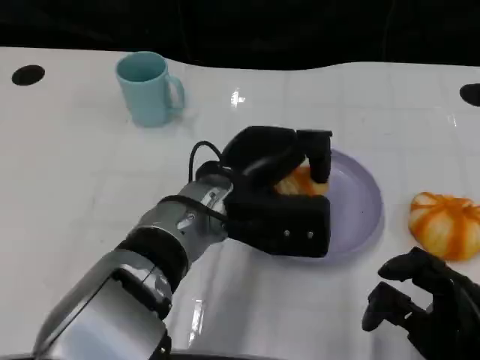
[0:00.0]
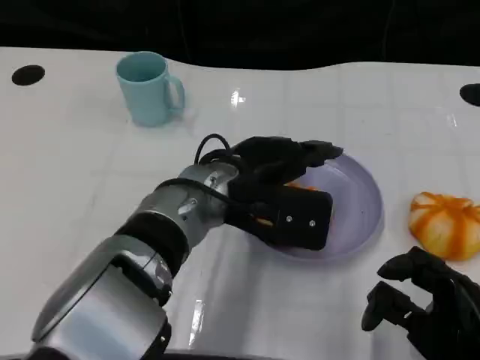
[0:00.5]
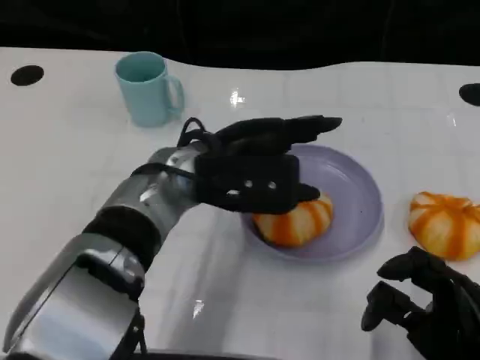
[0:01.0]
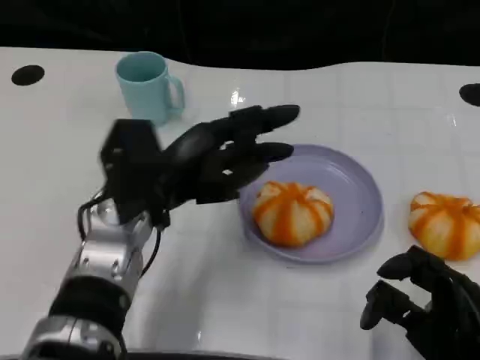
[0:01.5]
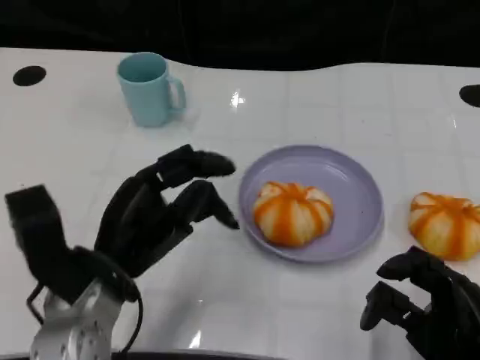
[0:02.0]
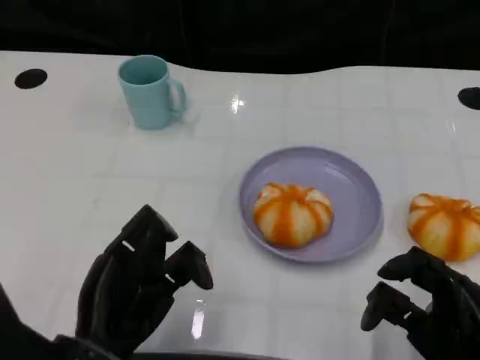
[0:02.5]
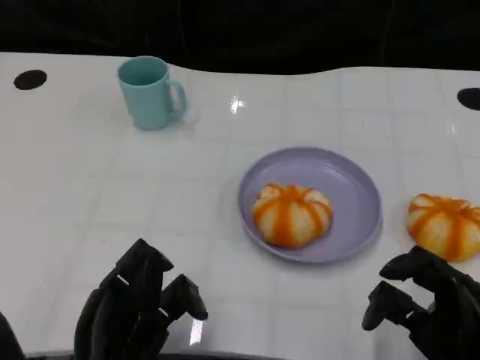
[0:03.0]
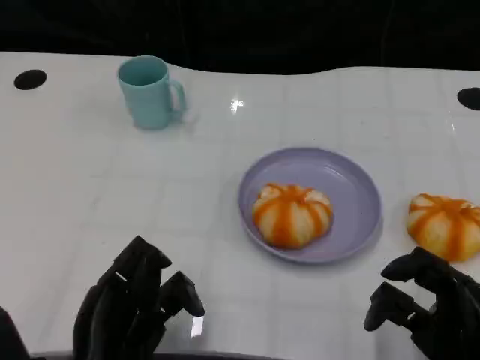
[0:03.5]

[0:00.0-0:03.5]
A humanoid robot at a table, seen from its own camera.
Task of the whole recording: Grasp the bread from the table and place it into the plate.
0:00.0 to 0:02.0: The left hand shifts approximately 15 cm to the left and backward.
0:02.0 to 0:03.5: The left hand travels backward by roughly 10 cm.

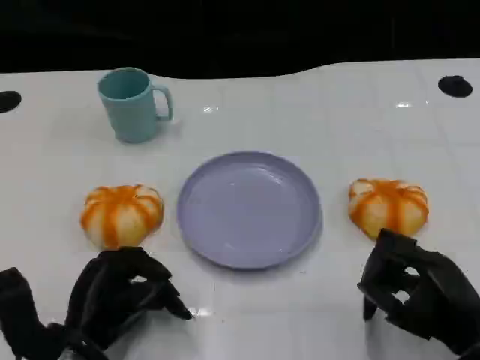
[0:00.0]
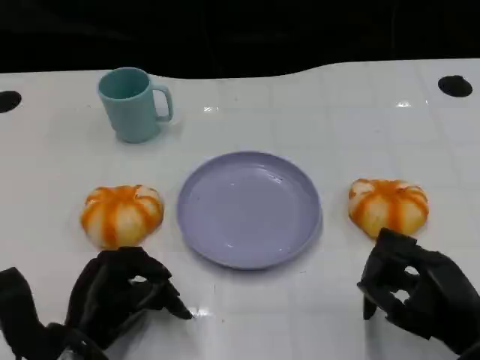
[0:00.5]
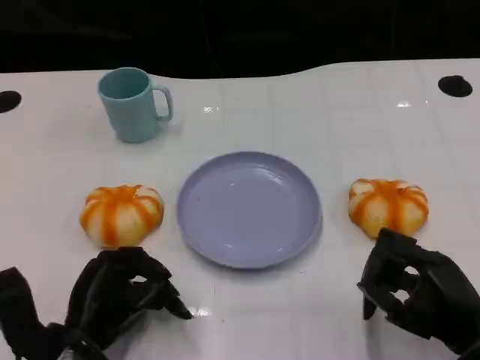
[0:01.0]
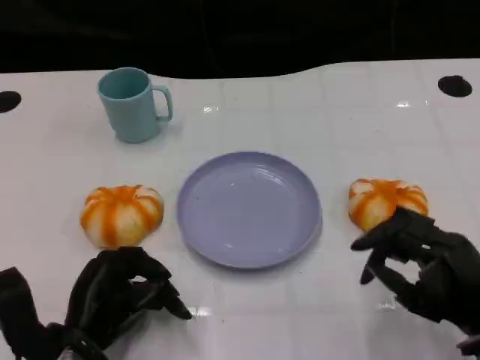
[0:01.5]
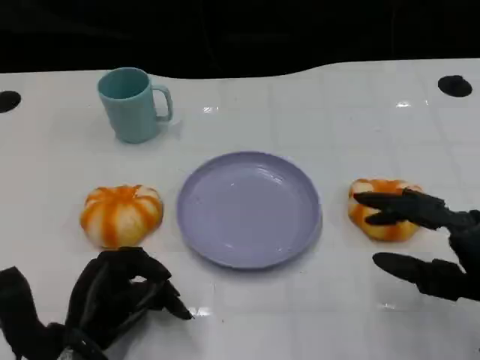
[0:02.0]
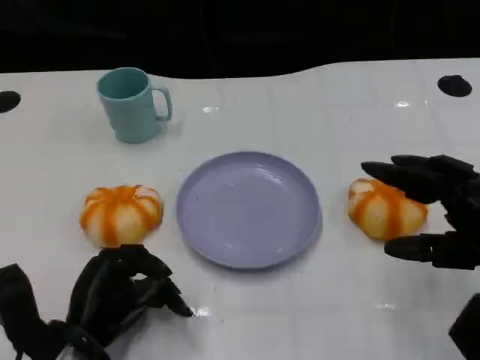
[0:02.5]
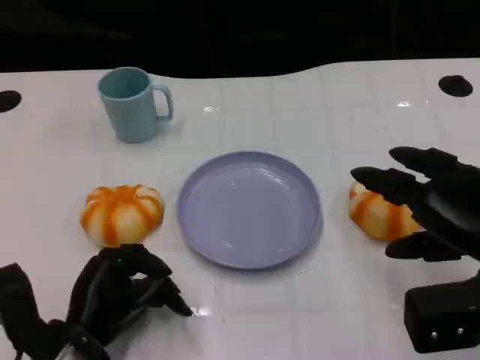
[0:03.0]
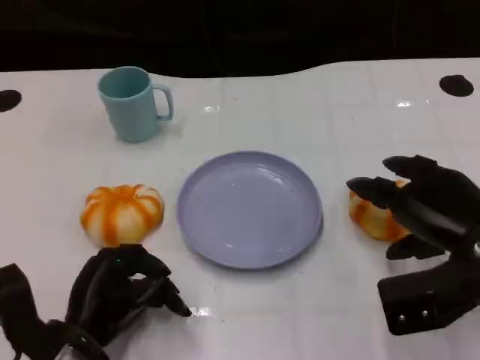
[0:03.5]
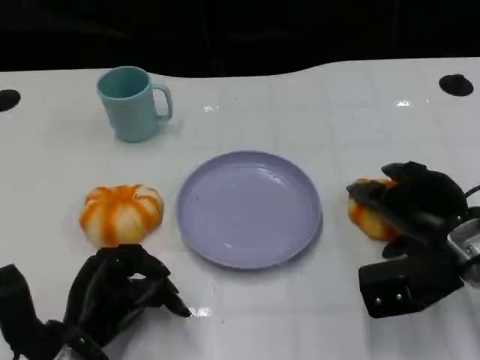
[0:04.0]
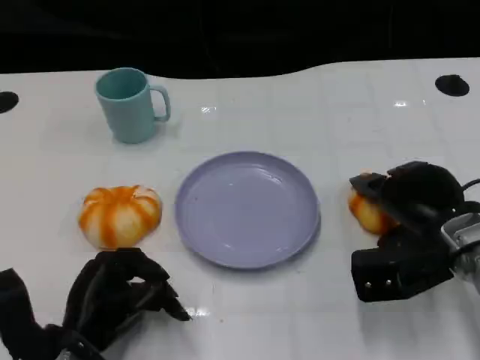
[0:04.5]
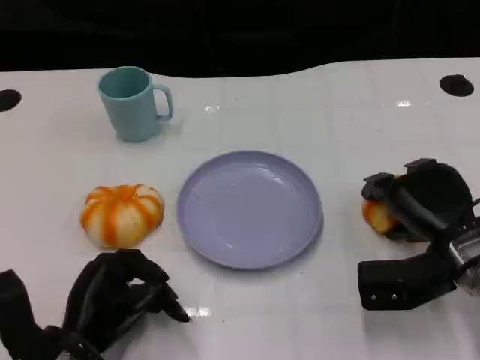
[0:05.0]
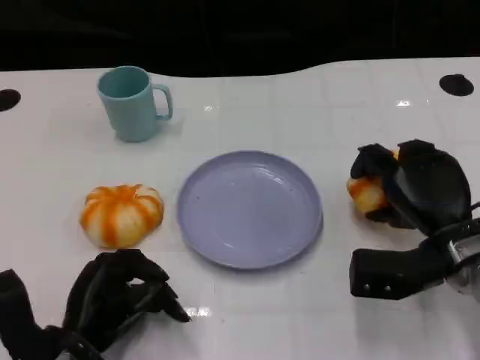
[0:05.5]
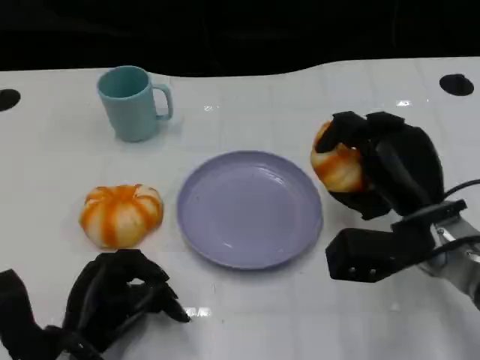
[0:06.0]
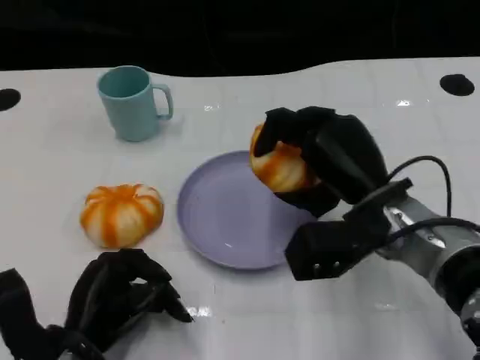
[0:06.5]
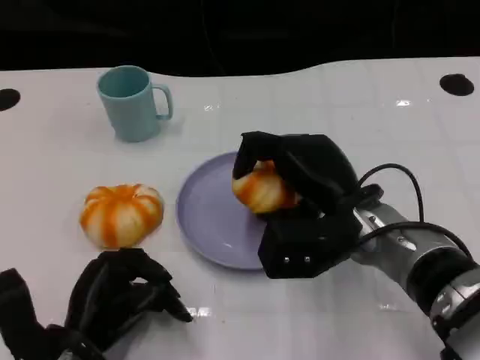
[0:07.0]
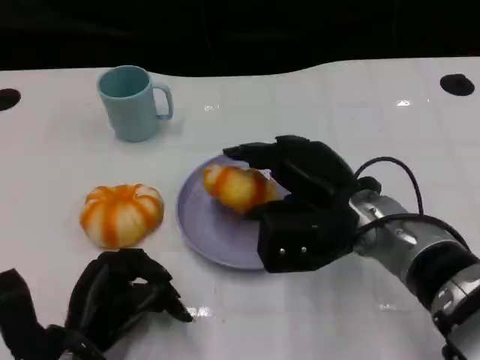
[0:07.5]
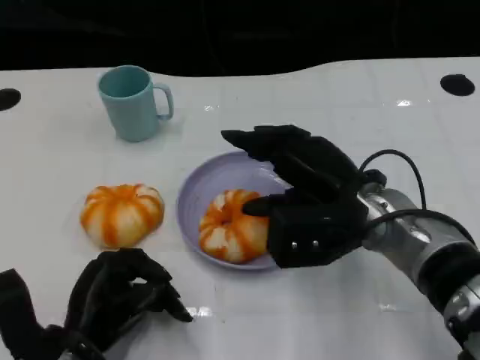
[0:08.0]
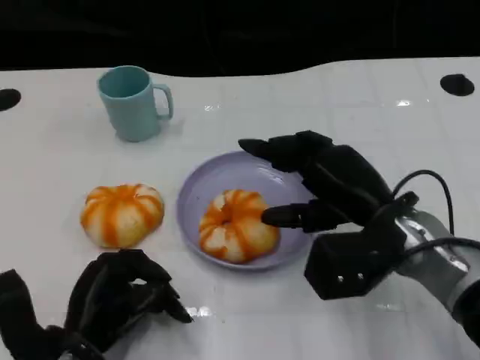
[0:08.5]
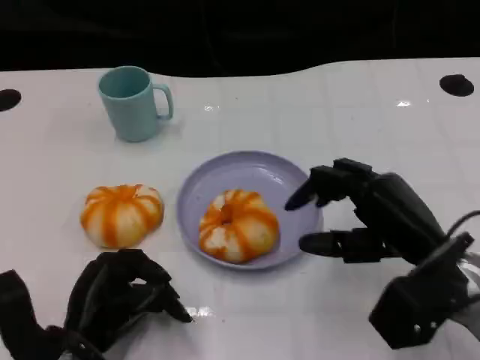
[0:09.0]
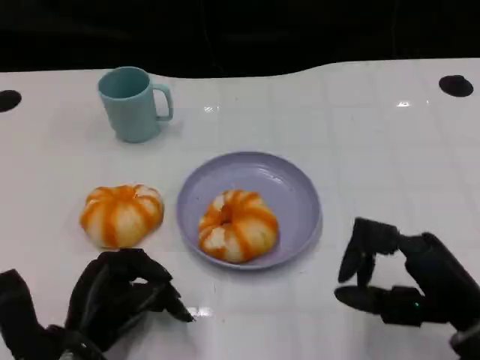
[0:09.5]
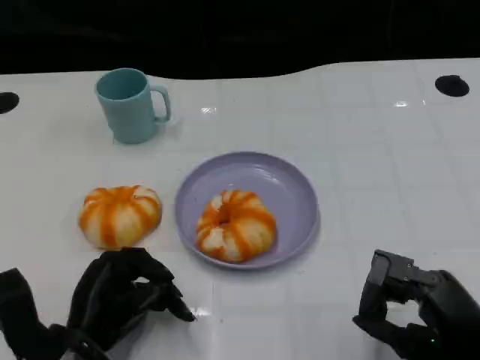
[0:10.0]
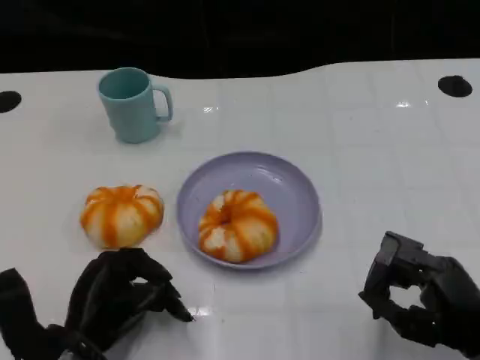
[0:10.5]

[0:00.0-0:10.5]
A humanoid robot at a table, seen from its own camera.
Task of the whole recording: Grasp the bread from the table and place it into the plate.
0:00.0 to 0:02.0: The right hand changes place by about 5 cm.
0:02.0 to 0:04.0: The right hand goes approximately 10 cm forward.
0:04.0 to 0:06.5: The right hand travels to the left by about 10 cm.
0:08.5 to 0:10.5: The right hand travels backward, to the right and downward by approximately 15 cm.

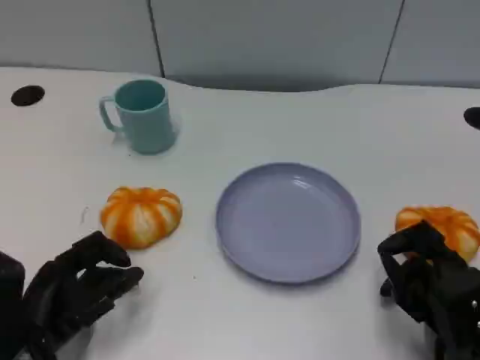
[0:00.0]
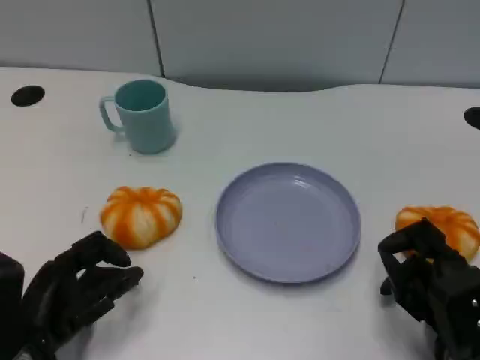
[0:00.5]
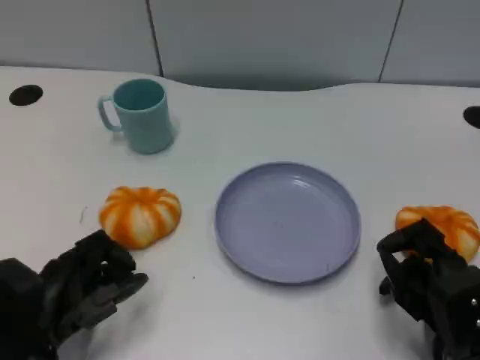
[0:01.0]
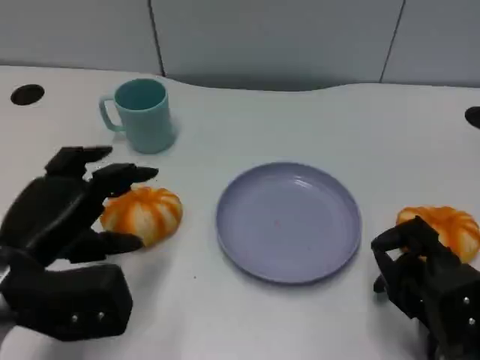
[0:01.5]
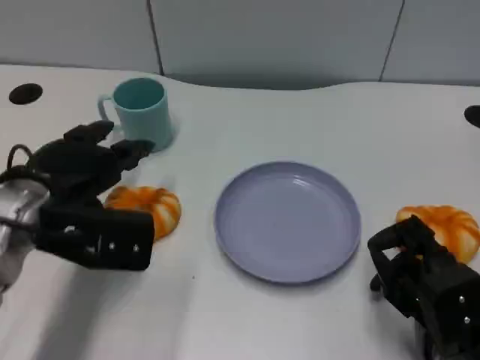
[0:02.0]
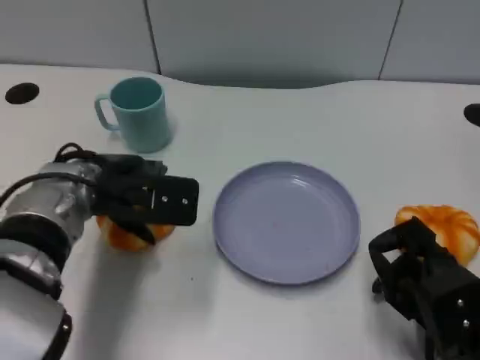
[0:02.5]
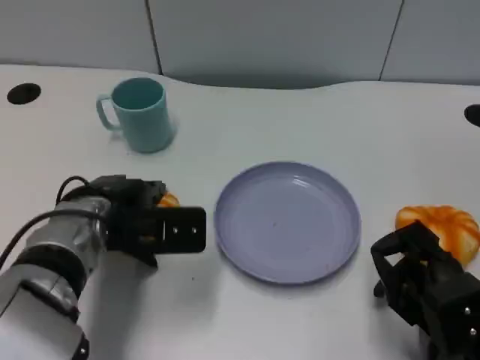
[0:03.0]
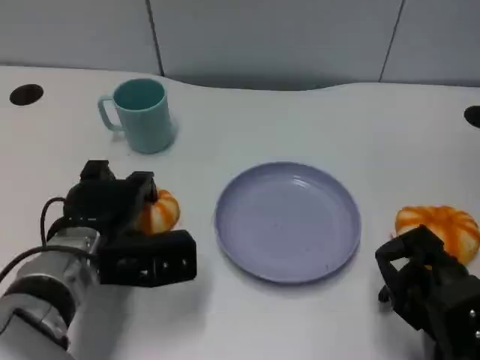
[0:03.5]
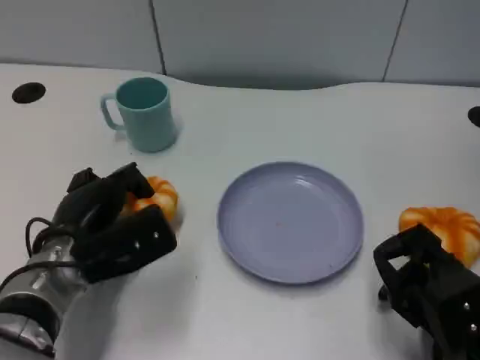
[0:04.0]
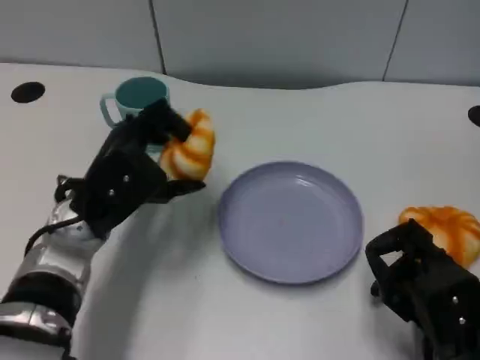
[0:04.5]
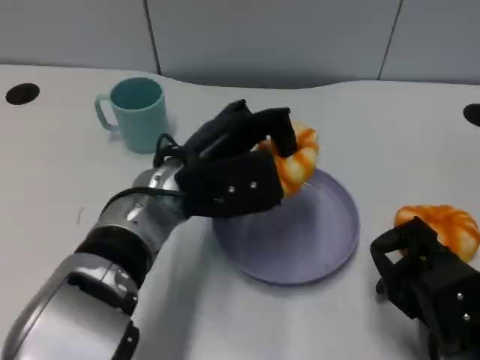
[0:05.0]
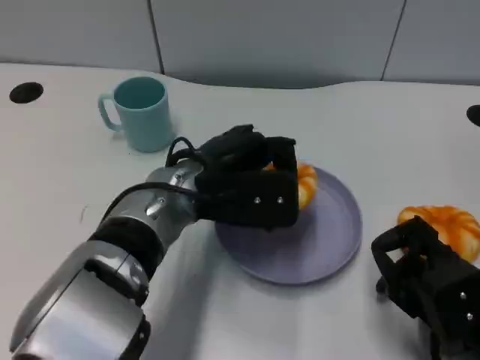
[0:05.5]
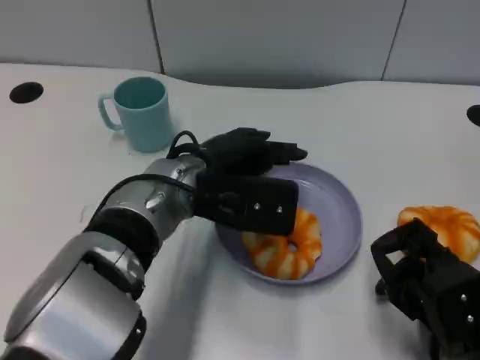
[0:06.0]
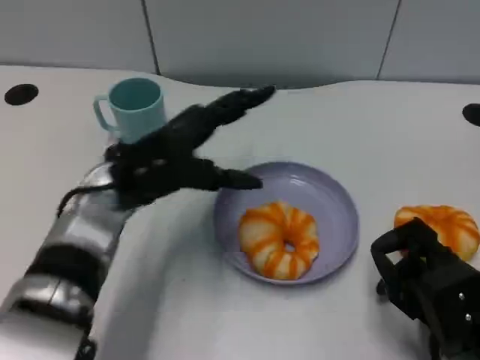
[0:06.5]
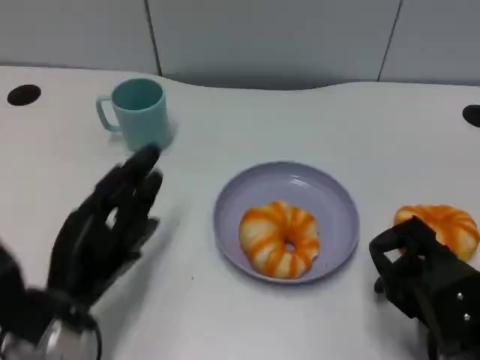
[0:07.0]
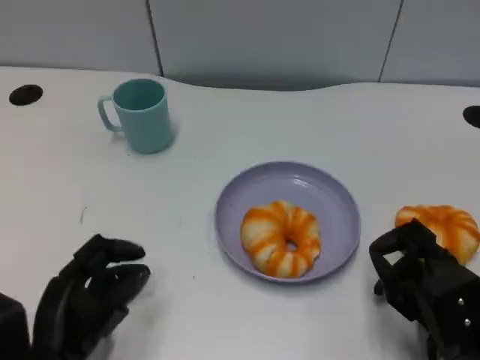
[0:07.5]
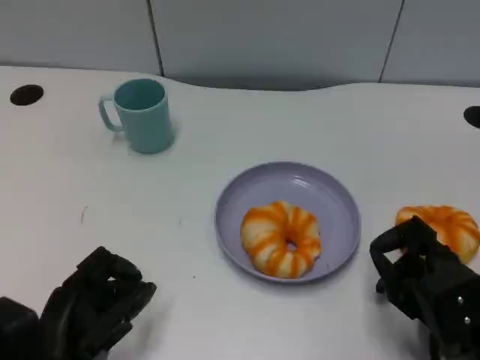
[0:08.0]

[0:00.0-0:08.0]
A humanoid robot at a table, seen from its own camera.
Task of the whole recording: Grasp the bread from the table and place it into the plate.
0:00.0 to 0:02.0: The left hand goes some 15 cm upward and forward.
0:02.0 to 0:04.0: The left hand heads downward, covering about 10 cm.
0:04.0 to 0:06.0: The left hand shifts some 15 cm to the right and upward.
0:06.0 to 0:08.0: The left hand travels backward, to the left and downward by some 25 cm.

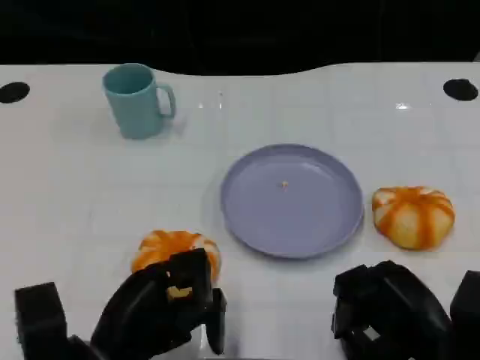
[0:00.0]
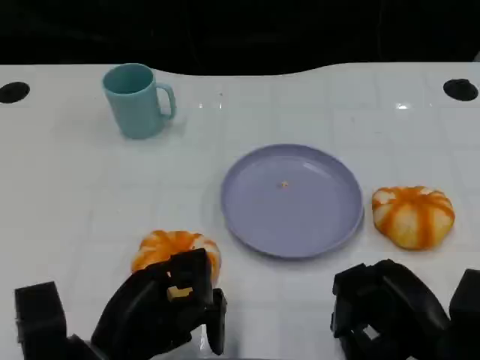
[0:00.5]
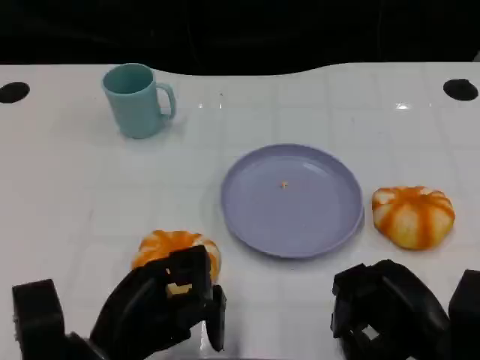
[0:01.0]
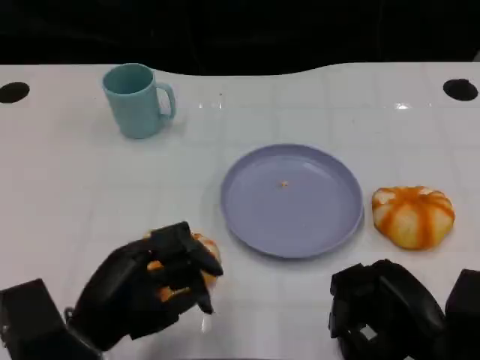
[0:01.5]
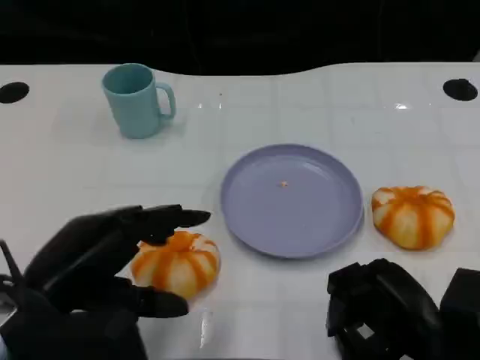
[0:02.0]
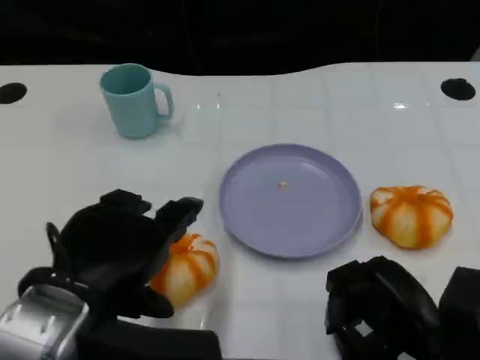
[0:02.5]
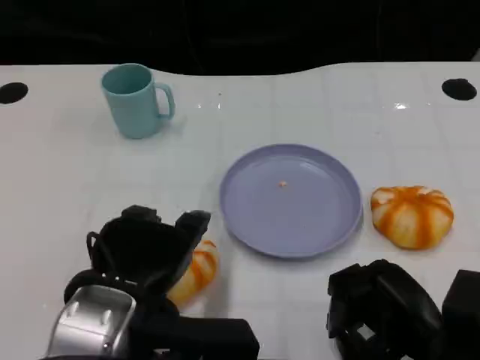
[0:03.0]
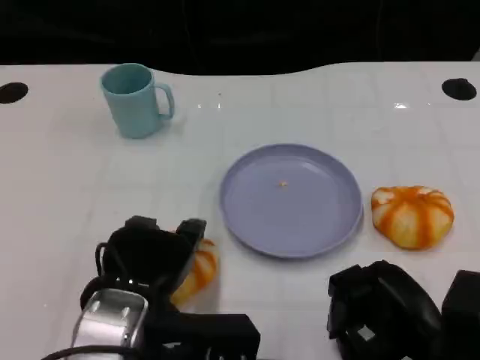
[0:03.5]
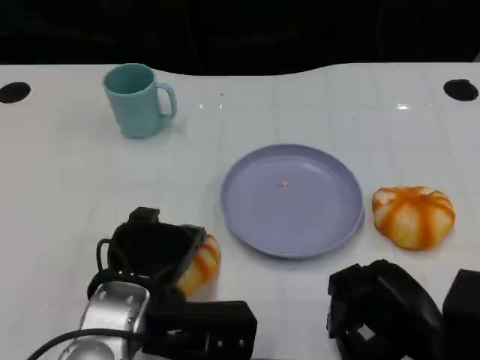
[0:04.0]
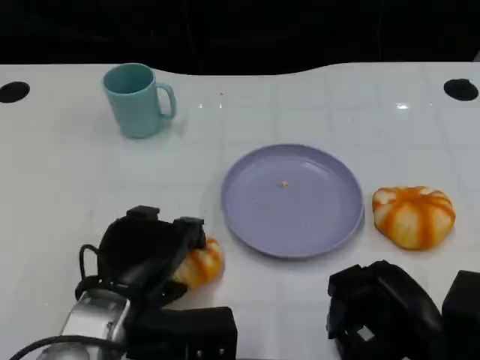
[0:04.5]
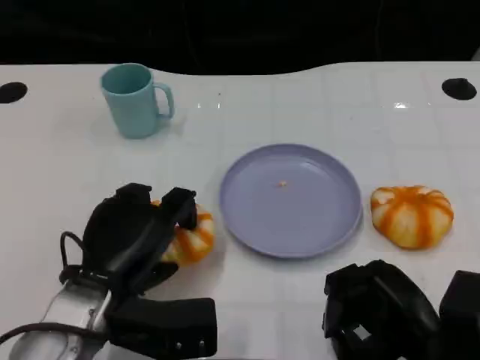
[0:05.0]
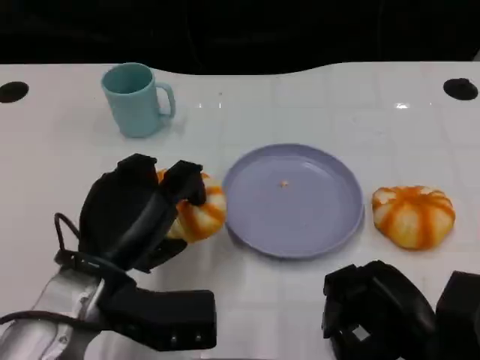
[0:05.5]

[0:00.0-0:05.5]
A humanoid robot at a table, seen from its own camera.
Task of the whole recording: Grasp the bread from the table and place it into the plate.
0:00.0 to 0:02.0: The left hand shifts roughly 10 cm upward.
0:02.0 to 0:03.5: The left hand moves to the right, some 10 cm.
